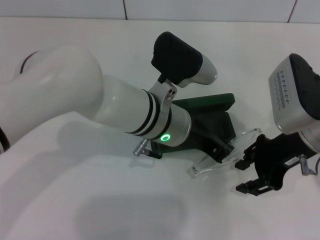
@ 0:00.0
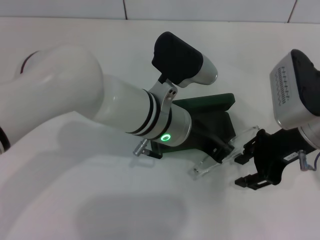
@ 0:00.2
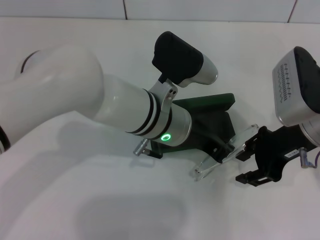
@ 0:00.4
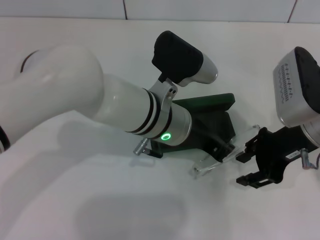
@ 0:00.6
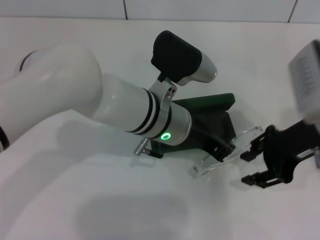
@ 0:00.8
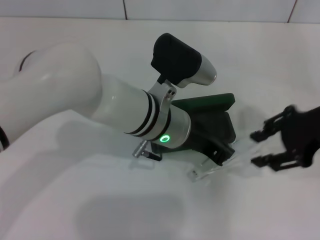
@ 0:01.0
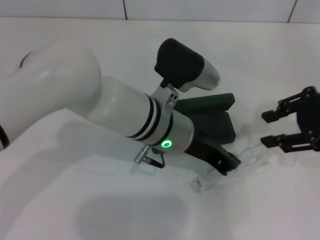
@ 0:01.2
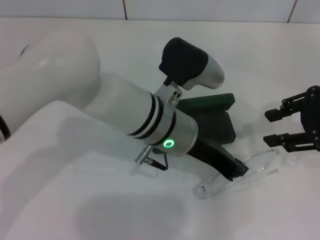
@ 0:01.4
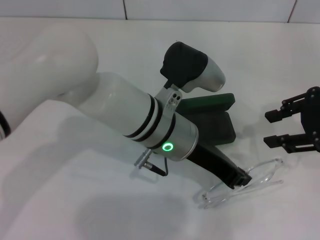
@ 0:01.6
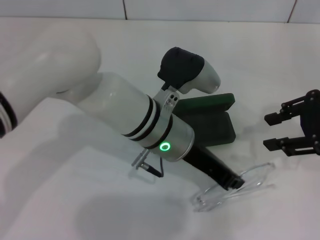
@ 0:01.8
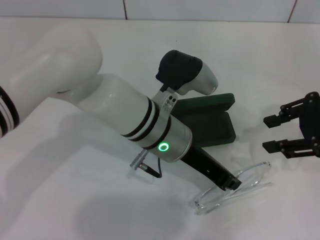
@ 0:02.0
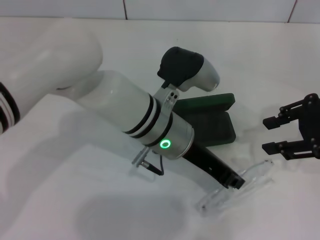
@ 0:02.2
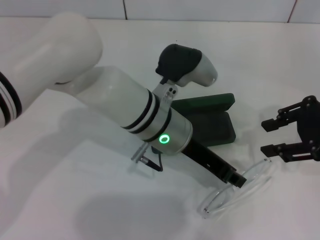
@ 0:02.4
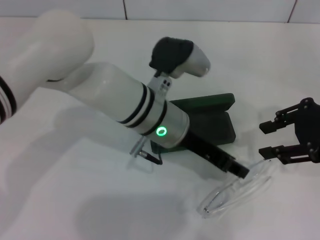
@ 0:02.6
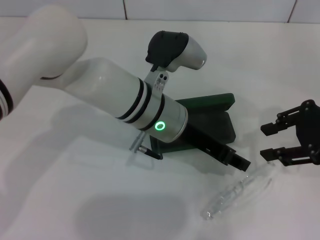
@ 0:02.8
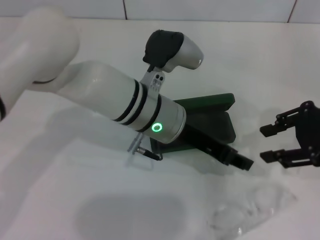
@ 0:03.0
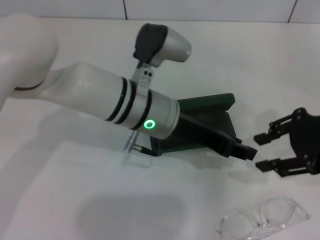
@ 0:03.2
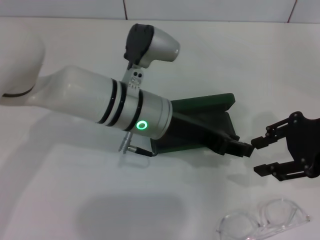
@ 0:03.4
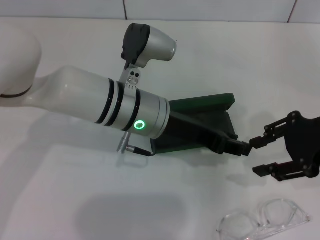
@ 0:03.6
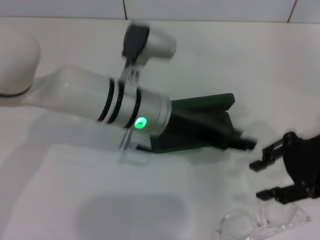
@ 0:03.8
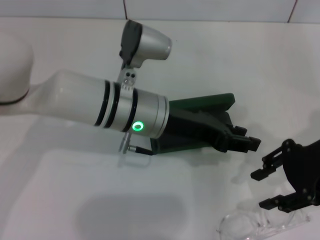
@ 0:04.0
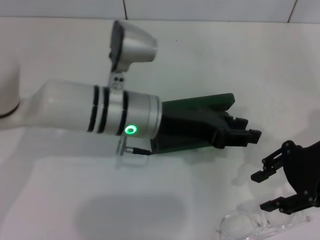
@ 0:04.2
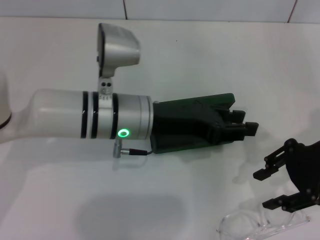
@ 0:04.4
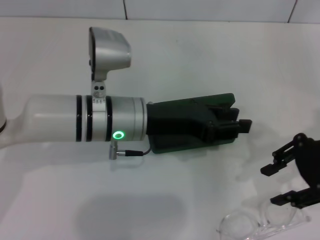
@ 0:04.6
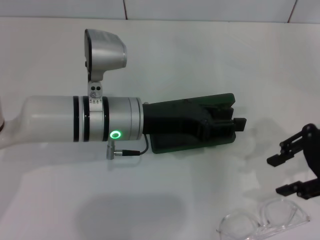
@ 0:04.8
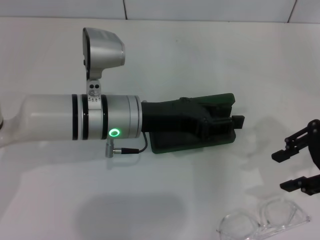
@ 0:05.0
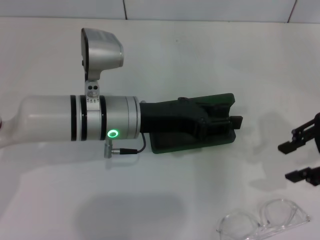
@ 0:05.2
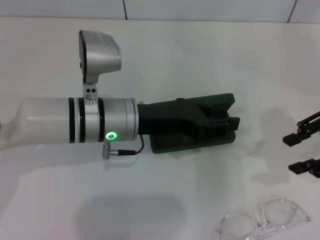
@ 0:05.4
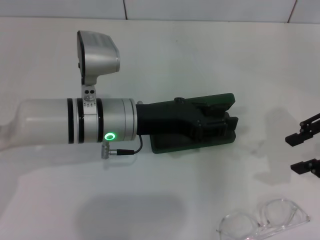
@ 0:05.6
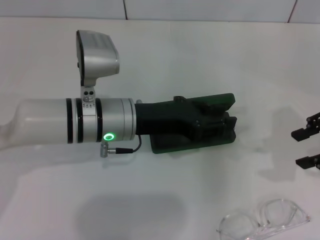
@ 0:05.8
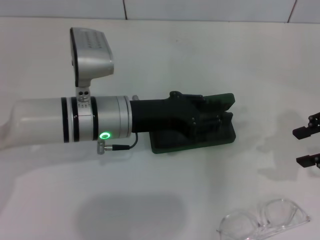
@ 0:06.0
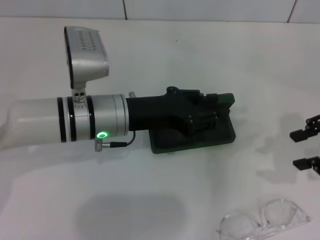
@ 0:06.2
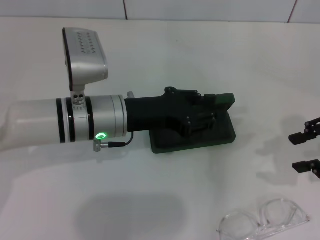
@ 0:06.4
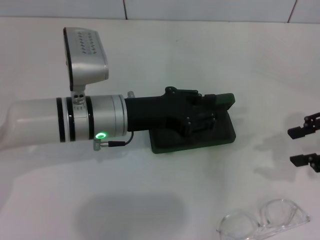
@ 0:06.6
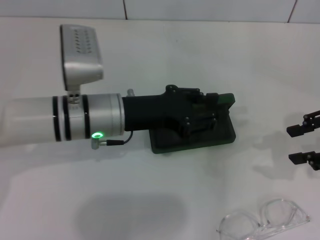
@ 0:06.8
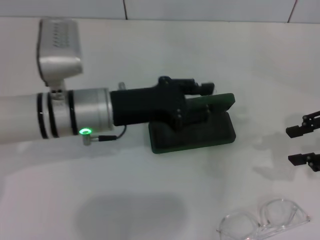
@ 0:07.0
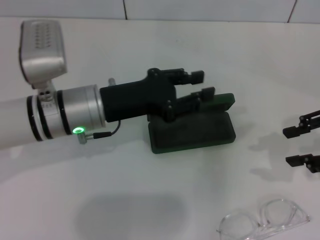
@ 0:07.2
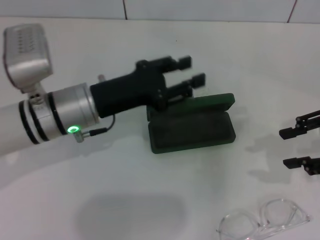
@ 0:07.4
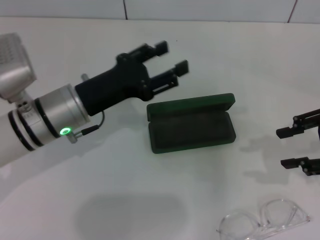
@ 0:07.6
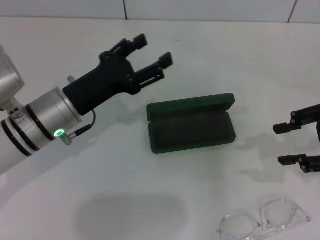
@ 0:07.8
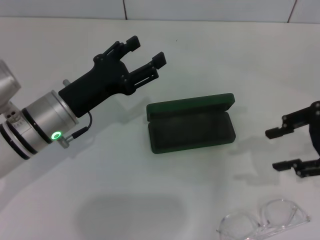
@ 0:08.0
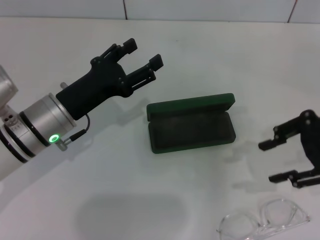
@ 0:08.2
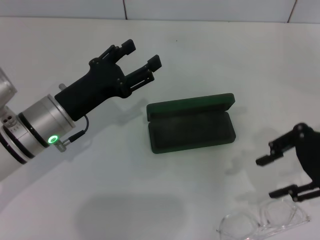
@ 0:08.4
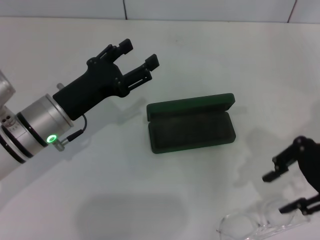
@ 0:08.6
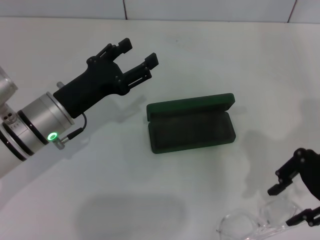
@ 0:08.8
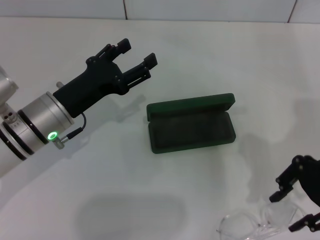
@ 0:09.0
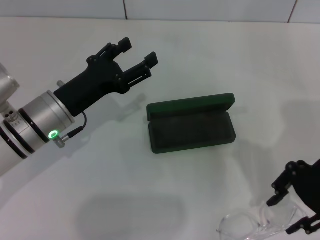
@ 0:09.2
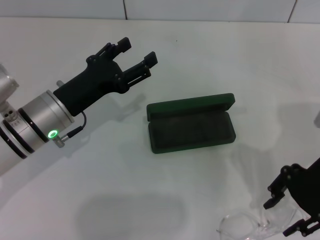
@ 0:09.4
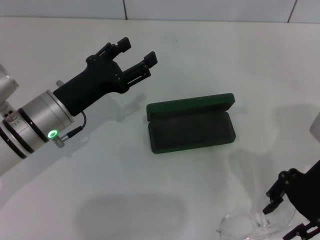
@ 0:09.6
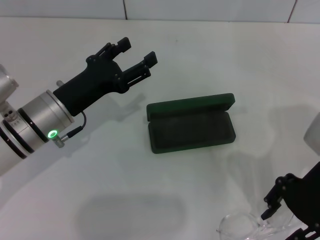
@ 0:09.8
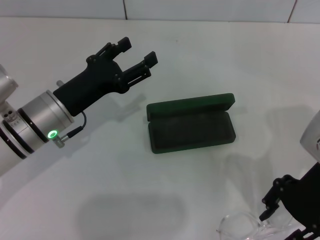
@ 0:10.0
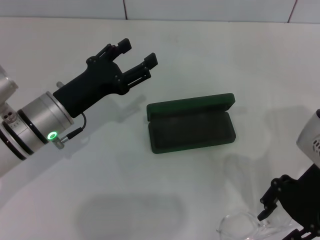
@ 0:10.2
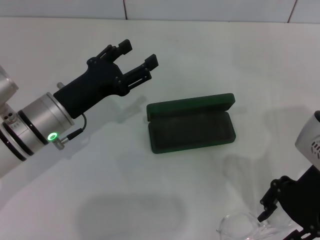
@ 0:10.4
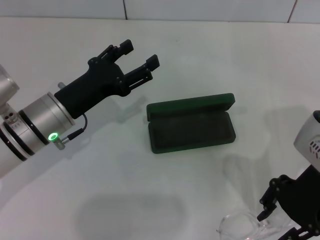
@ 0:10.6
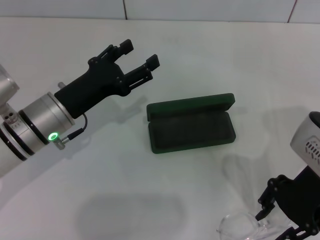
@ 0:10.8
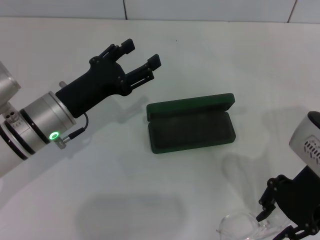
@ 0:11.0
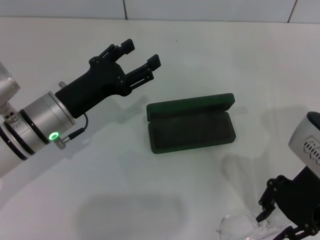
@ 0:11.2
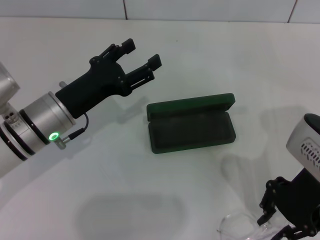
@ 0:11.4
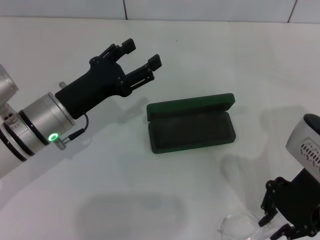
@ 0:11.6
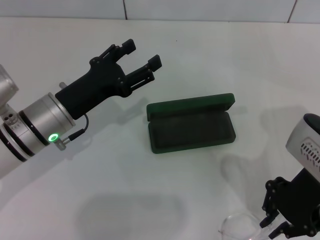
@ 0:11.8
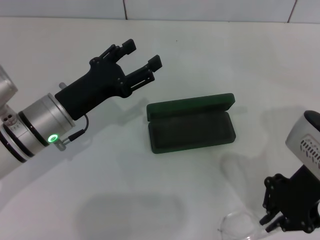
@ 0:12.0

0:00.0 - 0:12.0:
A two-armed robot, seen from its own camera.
0:00.0 - 0:01.6: The right gripper heads to the right and upward, covering some 10 cm.
0:01.6 - 0:03.0: The left gripper opens its fingers.
0:03.0 - 0:04.4: The left gripper shifts by about 5 cm.
0:04.4 - 0:06.0: The right gripper heads to the right, covering about 5 cm.
0:06.0 - 0:07.6: The left gripper is displaced to the left by approximately 5 cm.
0:07.6 - 0:09.0: The left gripper opens up; the right gripper travels to the left by approximately 5 cm.
0:09.0 - 0:10.4: The grippers make only small movements.
0:10.4 - 0:12.0: The right gripper closes up.

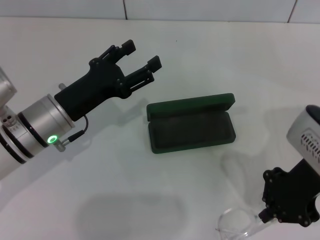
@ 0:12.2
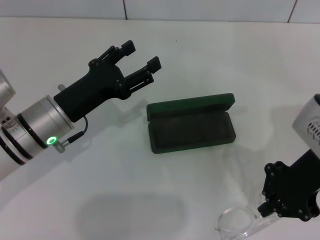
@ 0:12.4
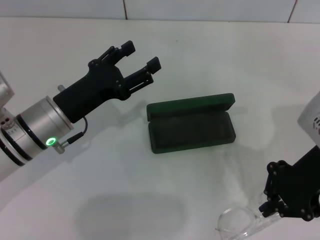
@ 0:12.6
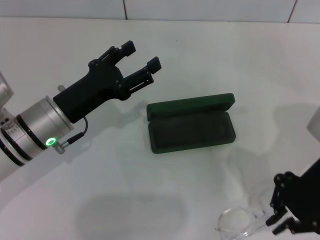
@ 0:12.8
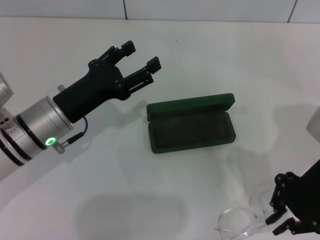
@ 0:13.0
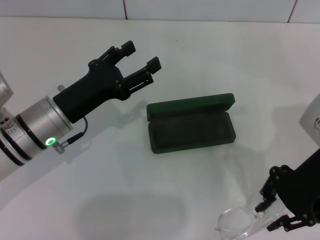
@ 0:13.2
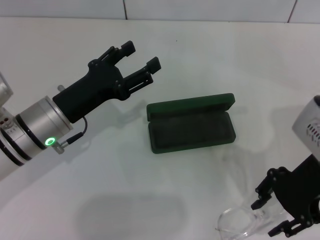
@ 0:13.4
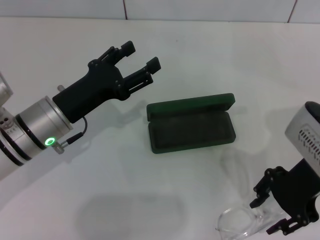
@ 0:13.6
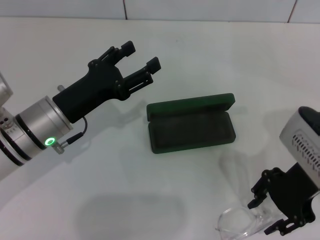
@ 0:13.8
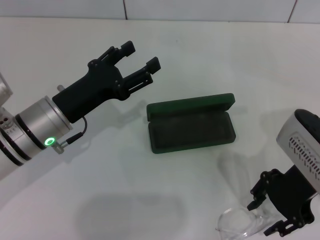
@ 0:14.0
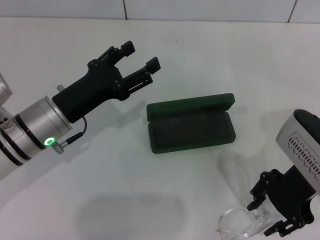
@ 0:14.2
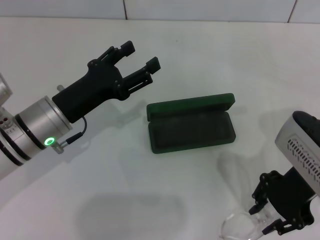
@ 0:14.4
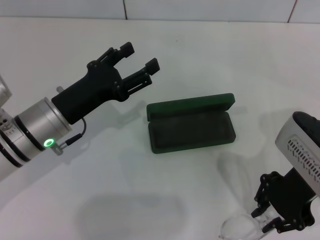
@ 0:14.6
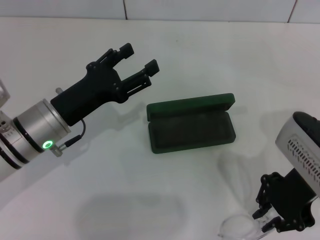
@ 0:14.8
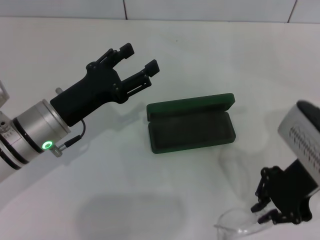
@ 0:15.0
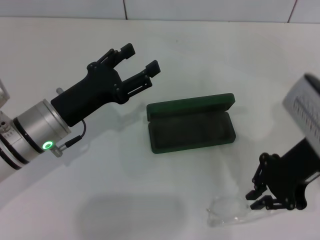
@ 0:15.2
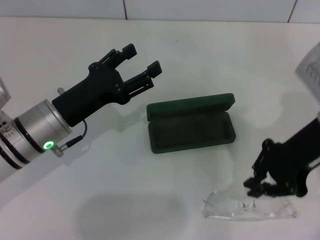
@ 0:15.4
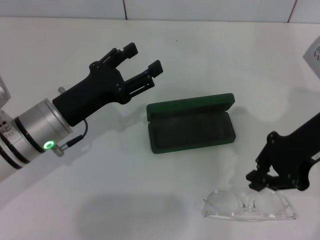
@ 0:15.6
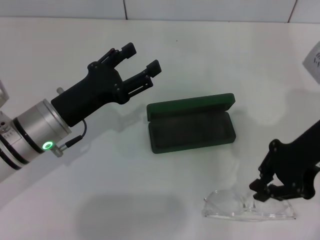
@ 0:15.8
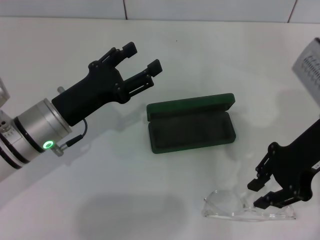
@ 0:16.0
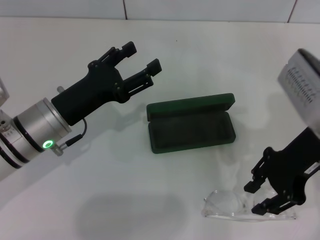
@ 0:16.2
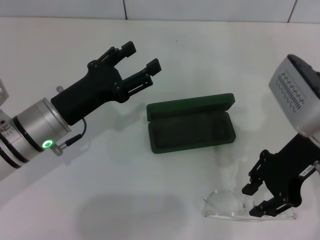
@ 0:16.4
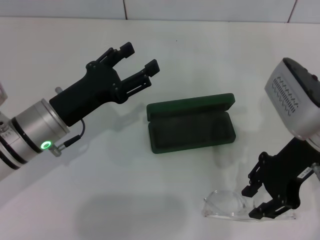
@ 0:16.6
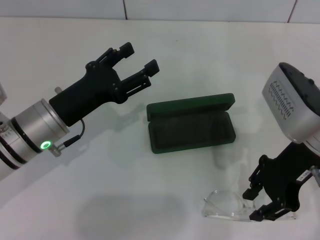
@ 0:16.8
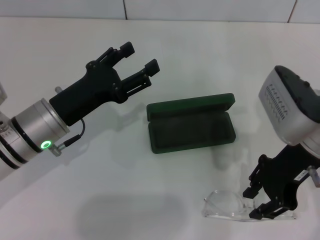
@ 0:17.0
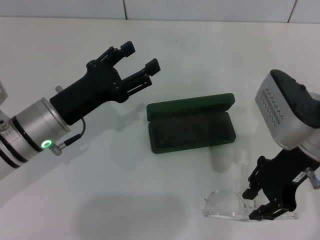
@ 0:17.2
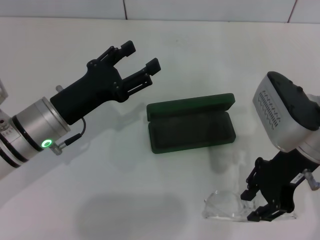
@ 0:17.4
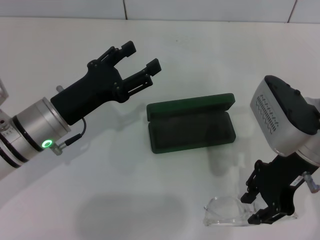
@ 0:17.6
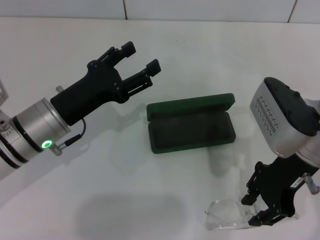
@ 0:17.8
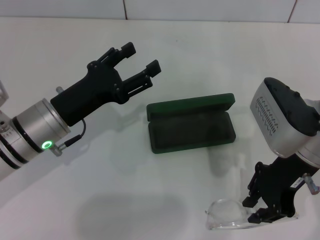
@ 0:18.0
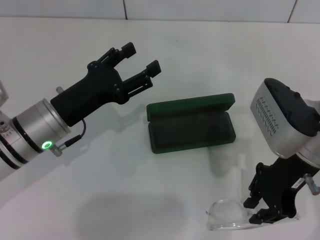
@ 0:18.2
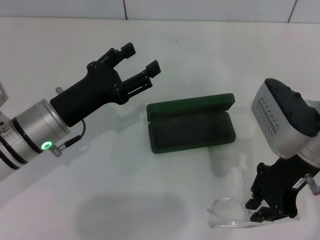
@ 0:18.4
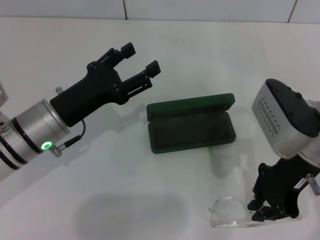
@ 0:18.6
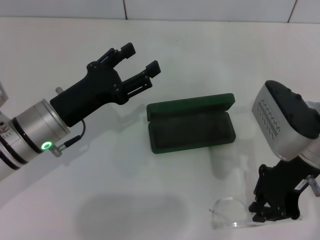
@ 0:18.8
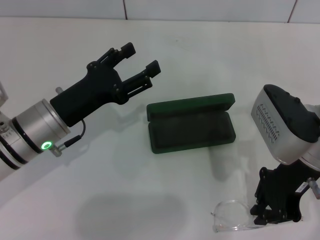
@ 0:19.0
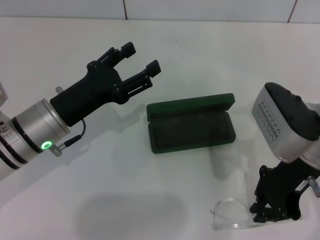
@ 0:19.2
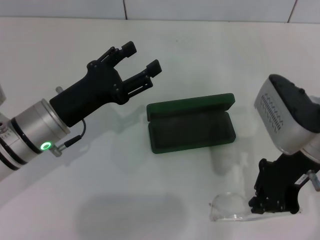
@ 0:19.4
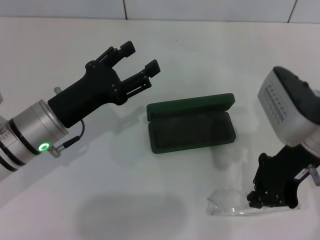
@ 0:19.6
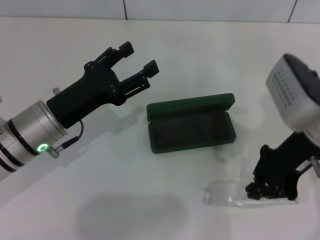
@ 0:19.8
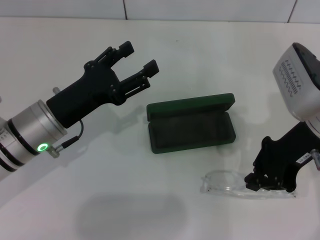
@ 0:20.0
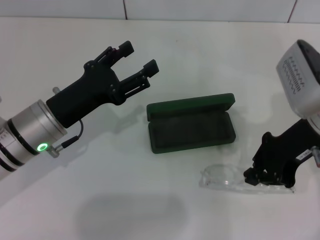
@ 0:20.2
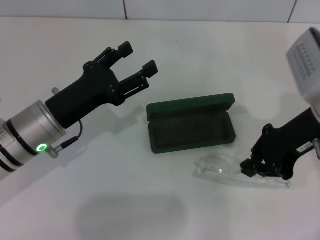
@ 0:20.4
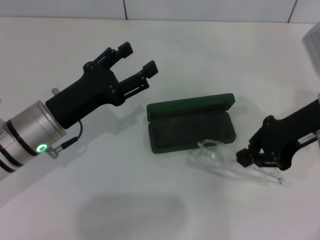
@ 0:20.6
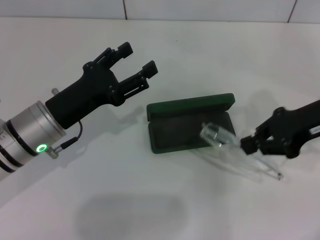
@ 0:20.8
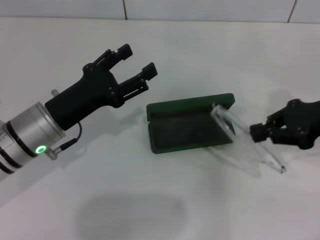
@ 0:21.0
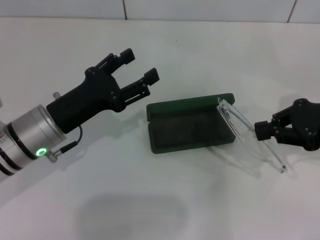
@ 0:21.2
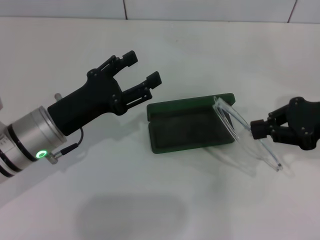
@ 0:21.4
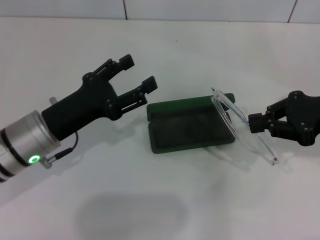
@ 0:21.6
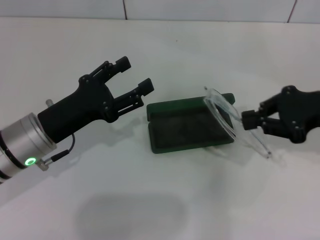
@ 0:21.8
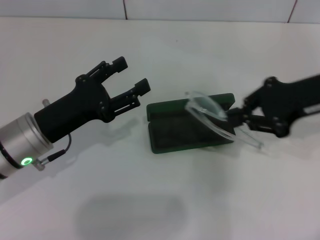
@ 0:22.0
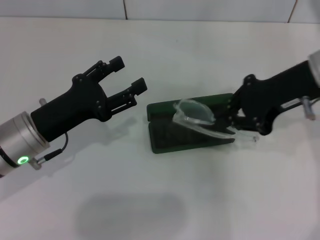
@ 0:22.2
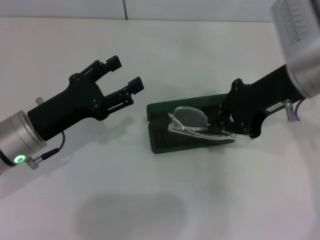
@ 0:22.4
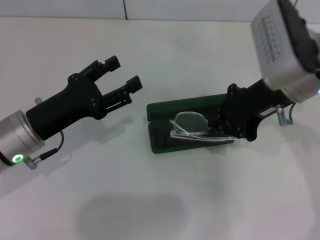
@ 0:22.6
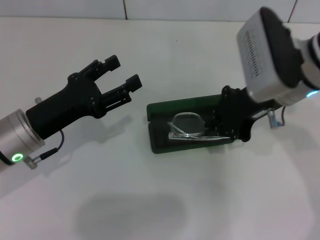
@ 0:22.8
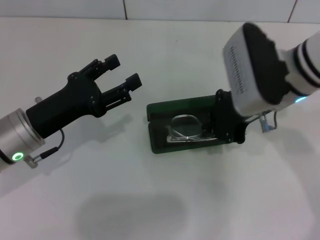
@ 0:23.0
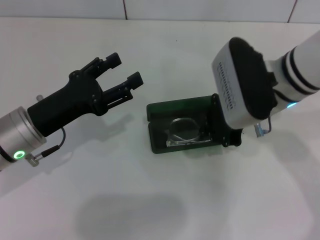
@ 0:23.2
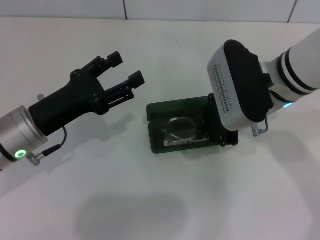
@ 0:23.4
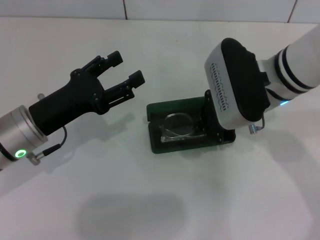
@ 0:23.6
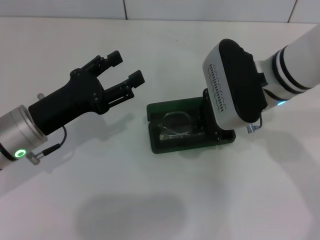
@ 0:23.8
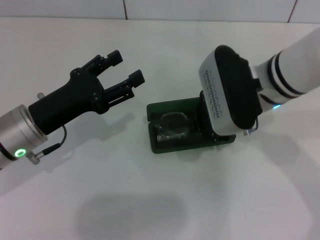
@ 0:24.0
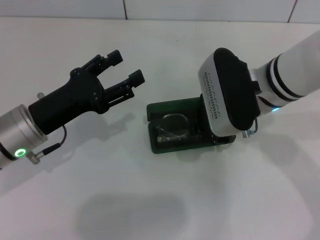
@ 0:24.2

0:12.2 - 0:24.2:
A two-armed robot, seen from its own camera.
0:12.2 - 0:13.8: The right gripper opens up.
0:13.8 - 0:15.2: The right gripper closes.
0:15.2 - 0:18.2: The grippers stay close to where they were, moving slightly.
0:18.2 - 0:19.8: The right gripper closes.
0:19.8 - 0:21.2: The right gripper shifts about 10 cm to the right.
0:21.2 - 0:22.6: The right gripper heads to the left, covering roughly 15 cm.
0:22.6 - 0:24.2: The right gripper shifts roughly 5 cm to the left.
